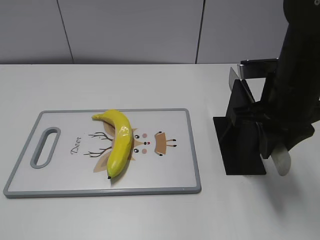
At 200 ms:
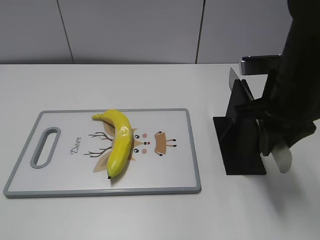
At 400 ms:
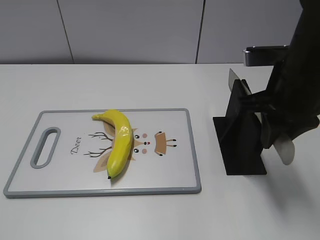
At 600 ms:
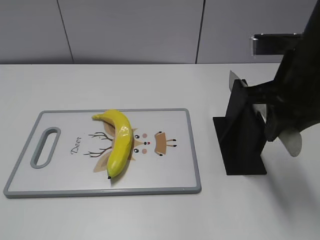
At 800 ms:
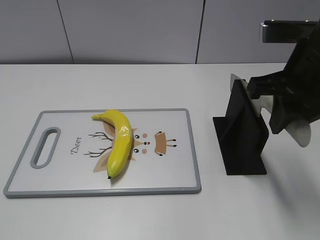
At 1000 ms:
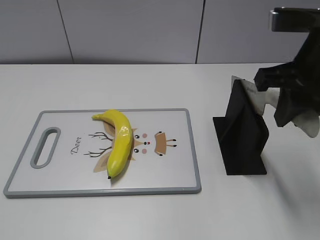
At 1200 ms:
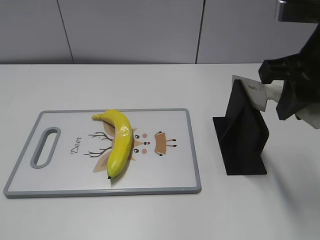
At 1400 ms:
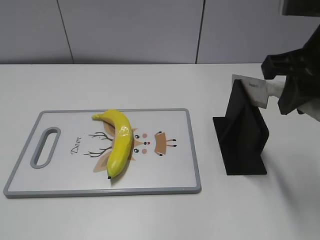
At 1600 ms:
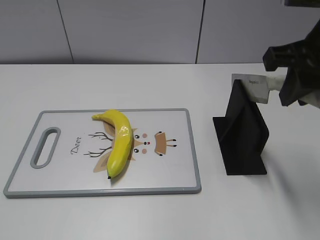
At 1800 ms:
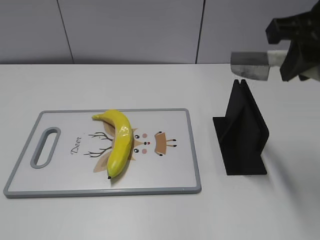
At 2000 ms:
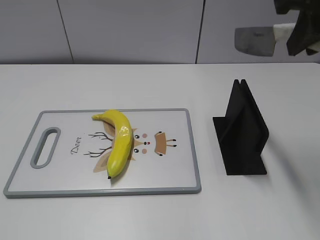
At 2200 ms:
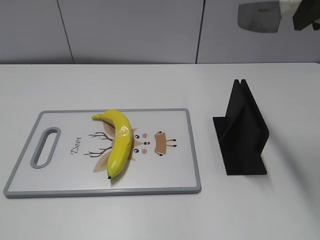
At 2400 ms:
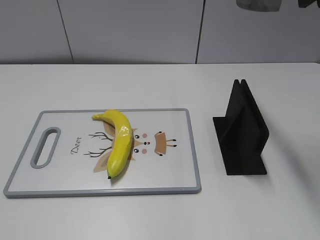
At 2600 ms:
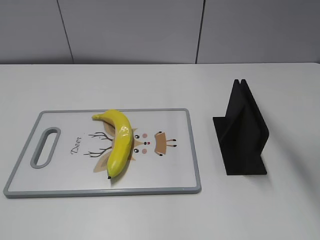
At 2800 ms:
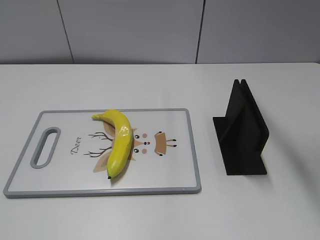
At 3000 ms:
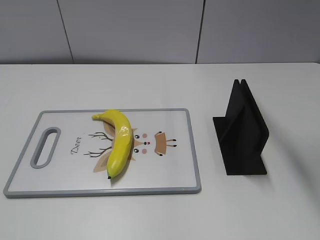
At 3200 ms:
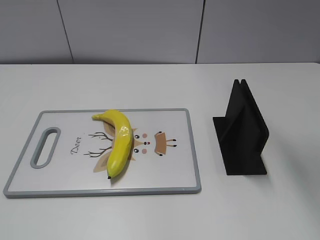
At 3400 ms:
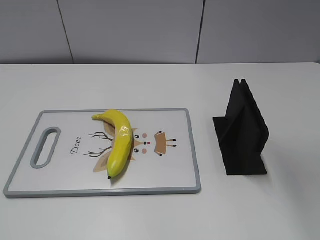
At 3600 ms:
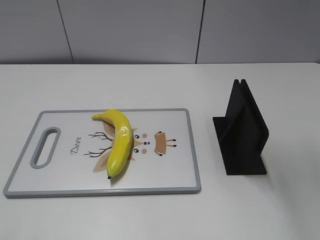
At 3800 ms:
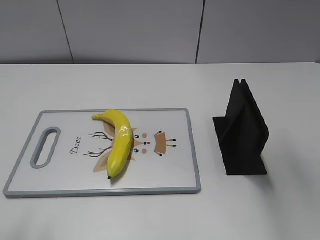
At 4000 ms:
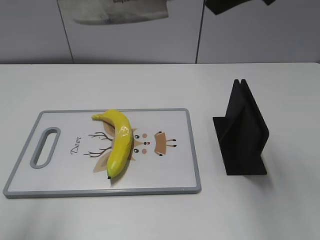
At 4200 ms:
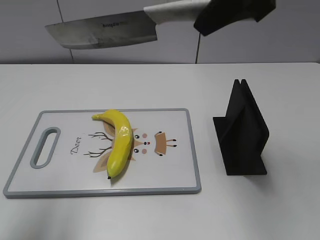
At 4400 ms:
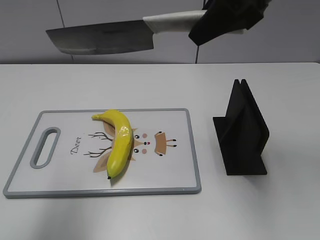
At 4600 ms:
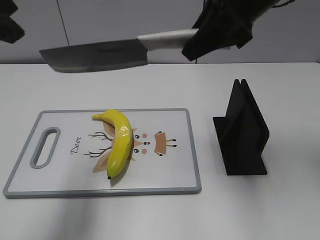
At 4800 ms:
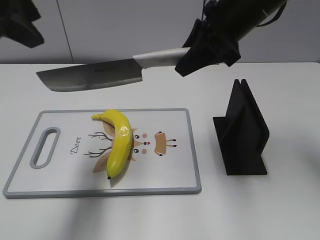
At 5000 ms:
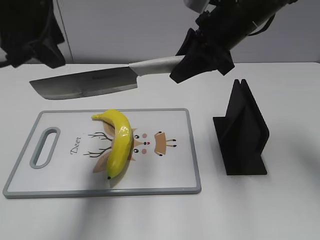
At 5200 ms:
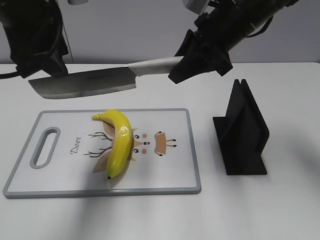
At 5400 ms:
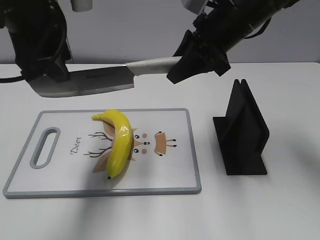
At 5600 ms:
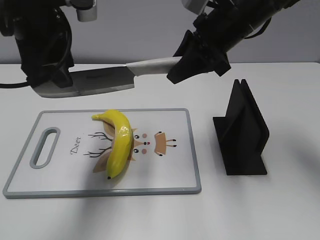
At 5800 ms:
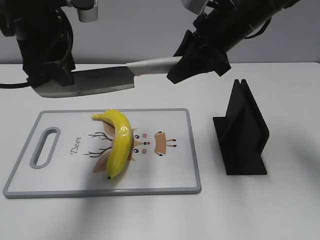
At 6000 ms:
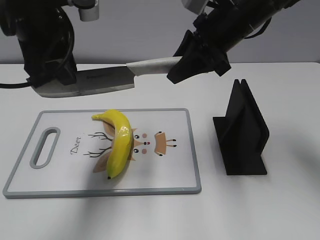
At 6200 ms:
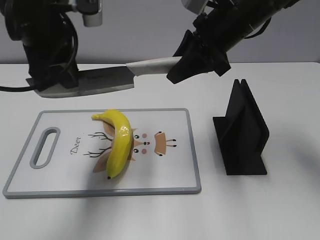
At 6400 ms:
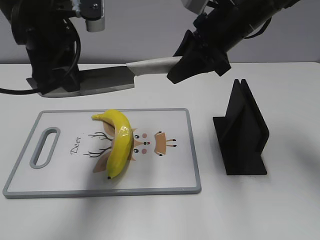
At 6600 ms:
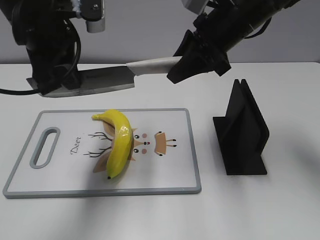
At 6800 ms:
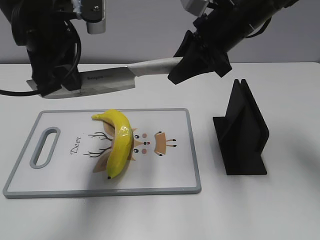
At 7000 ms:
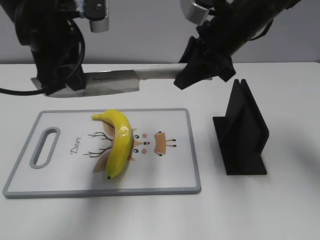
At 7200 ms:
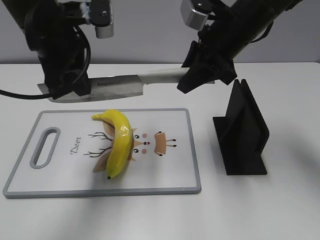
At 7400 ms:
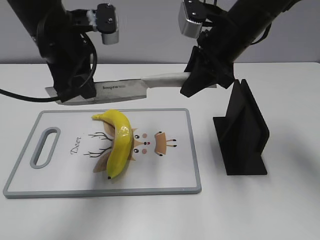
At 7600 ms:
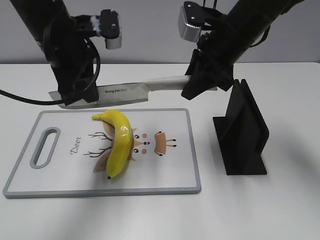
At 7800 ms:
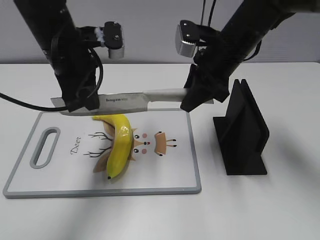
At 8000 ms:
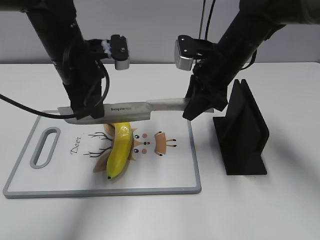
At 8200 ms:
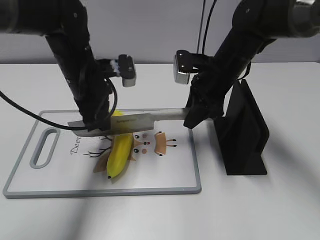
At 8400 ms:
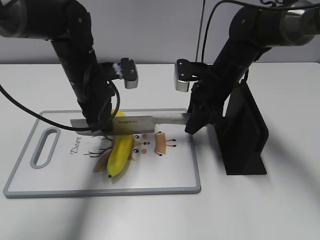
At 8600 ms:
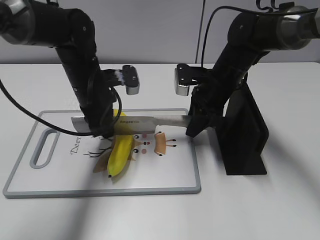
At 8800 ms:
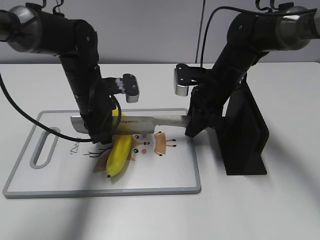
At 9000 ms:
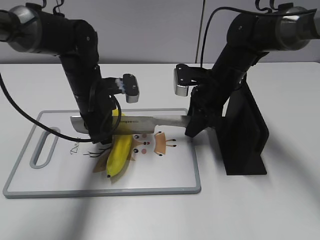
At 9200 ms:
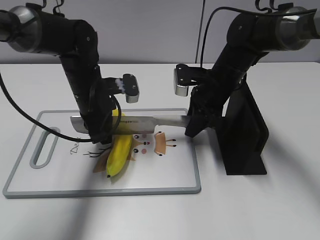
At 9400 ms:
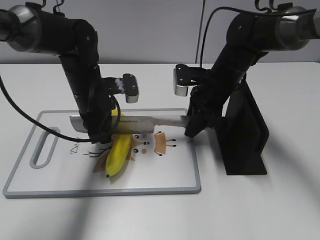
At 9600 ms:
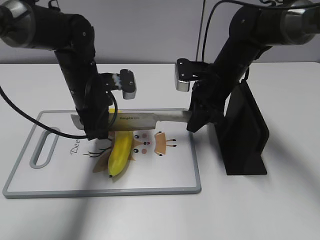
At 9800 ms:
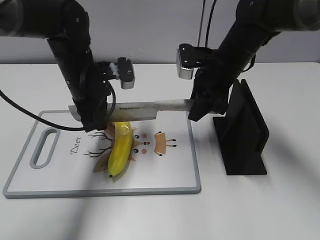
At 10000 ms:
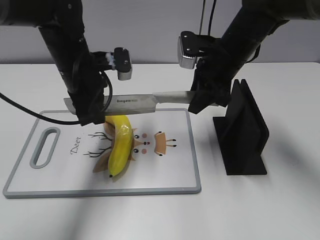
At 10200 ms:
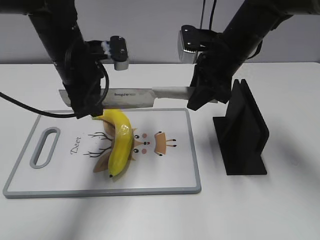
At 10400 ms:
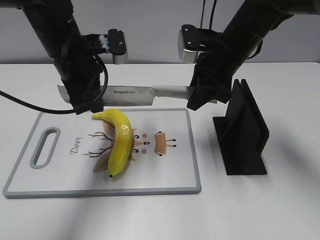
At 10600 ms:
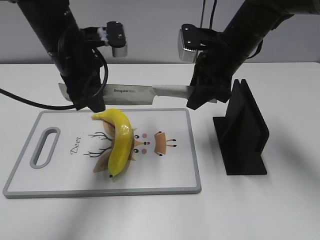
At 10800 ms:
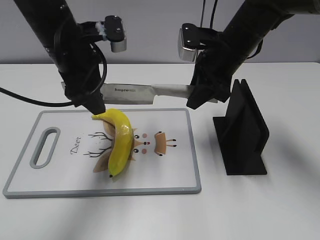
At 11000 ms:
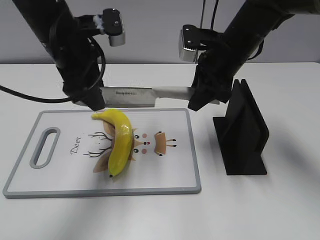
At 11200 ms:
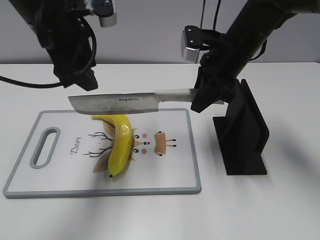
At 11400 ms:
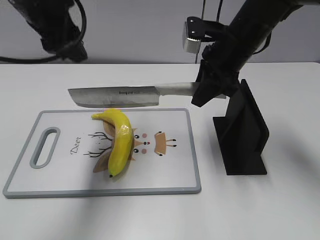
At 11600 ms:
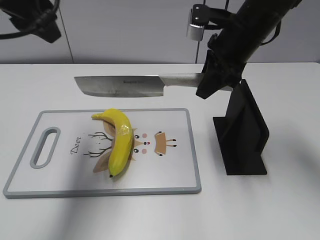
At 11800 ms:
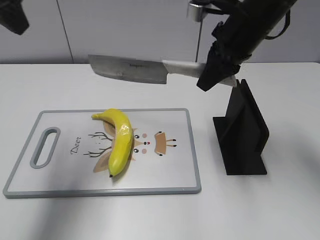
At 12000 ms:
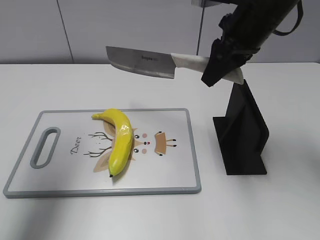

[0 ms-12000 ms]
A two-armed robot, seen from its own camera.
Task of the whole recording: cut plastic banana.
Step, 1200 ms to 10400 ms: Lift the knife with your right hand.
0 ms to 1600 ms: The right gripper is displaced upward by some 10 cm.
1600 ms to 3000 ms: The right gripper travels upward by roughly 10 cm.
3000 ms to 4400 ms: The left gripper goes approximately 25 cm forward and upward, while the right gripper travels downward, forward and to the left by about 15 cm.
4400 ms to 6000 ms: The left gripper heads forward, downward and to the right, covering approximately 15 cm, and closes. The right gripper shifts roughly 10 cm downward.
6000 ms to 7600 ms: The left gripper goes approximately 5 cm downward, and closes up.
7600 ms to 9000 ms: Both grippers travel together downward, approximately 10 cm.
9000 ms to 10400 ms: Both grippers travel together upward, approximately 10 cm.
10400 ms to 12000 ms: The right gripper heads upward, covering approximately 10 cm. The left gripper is displaced upward and to the left by approximately 20 cm, and opens up.

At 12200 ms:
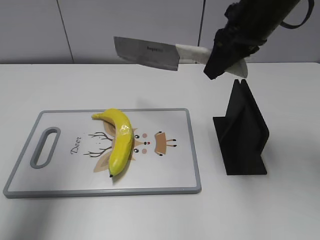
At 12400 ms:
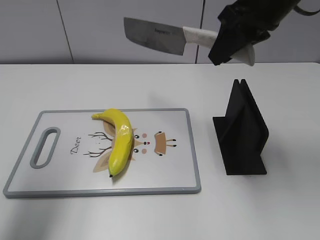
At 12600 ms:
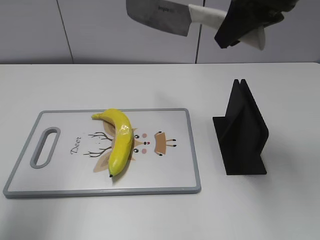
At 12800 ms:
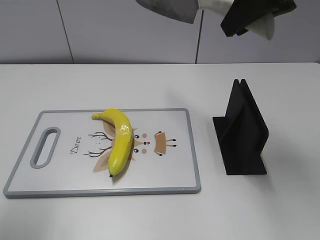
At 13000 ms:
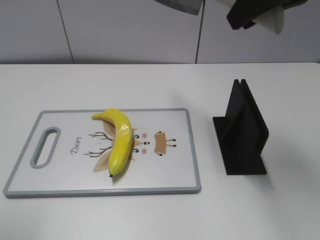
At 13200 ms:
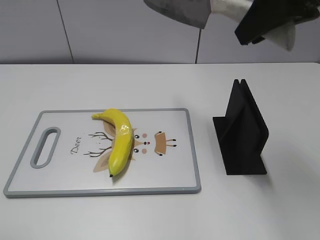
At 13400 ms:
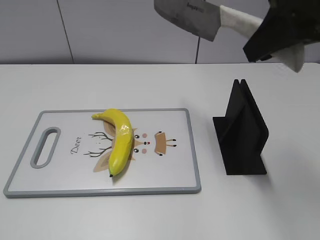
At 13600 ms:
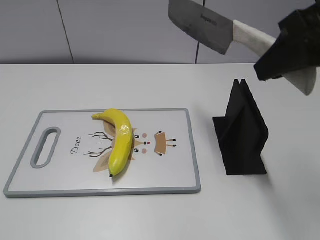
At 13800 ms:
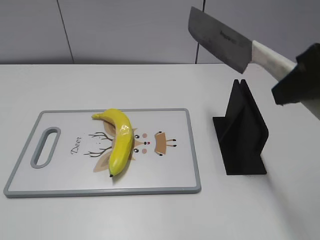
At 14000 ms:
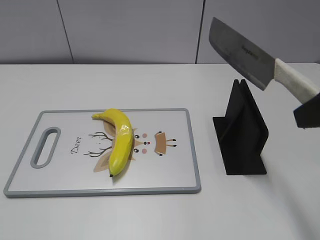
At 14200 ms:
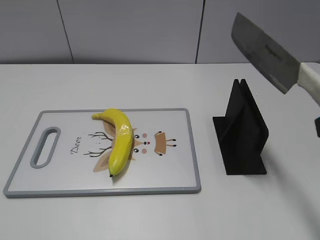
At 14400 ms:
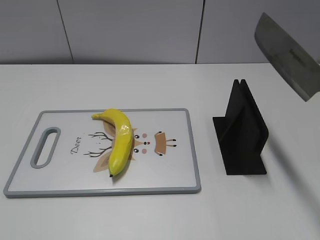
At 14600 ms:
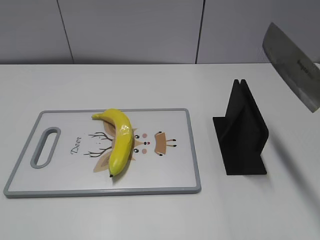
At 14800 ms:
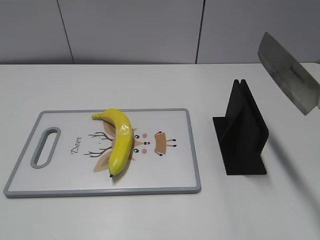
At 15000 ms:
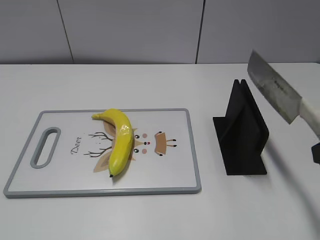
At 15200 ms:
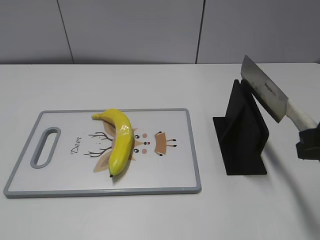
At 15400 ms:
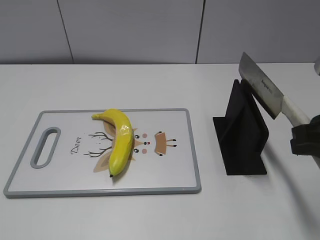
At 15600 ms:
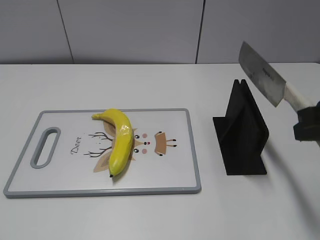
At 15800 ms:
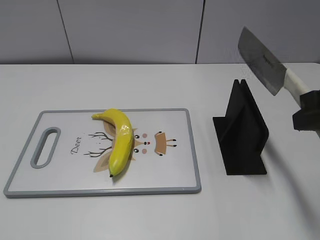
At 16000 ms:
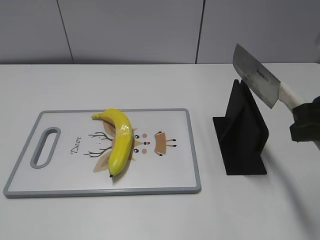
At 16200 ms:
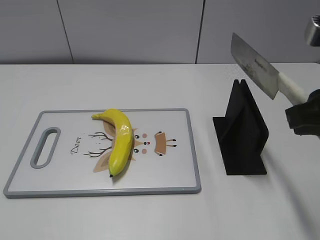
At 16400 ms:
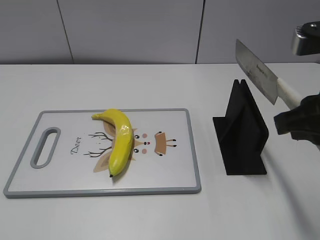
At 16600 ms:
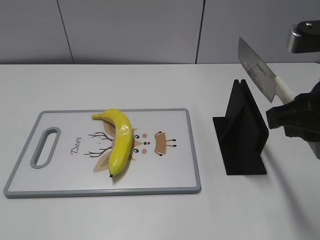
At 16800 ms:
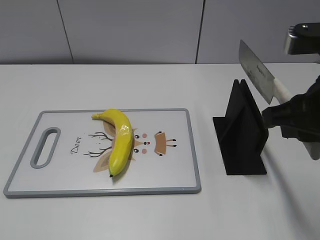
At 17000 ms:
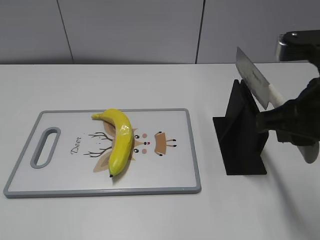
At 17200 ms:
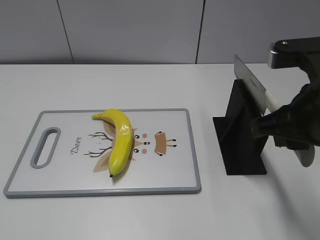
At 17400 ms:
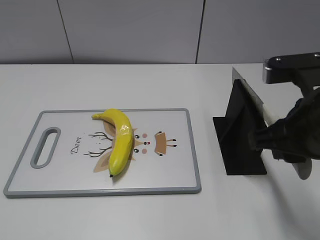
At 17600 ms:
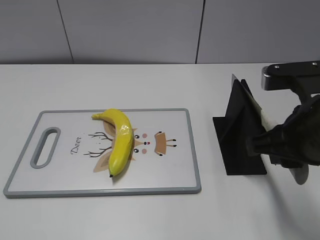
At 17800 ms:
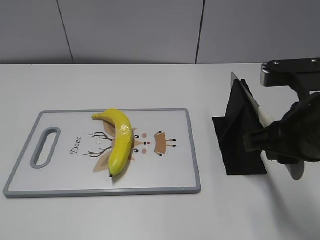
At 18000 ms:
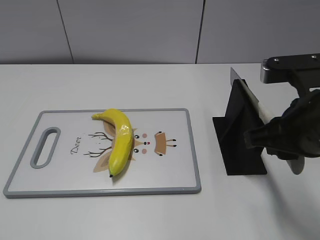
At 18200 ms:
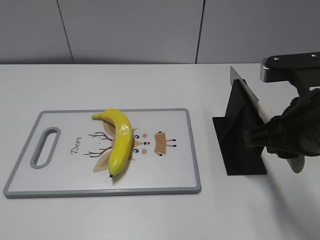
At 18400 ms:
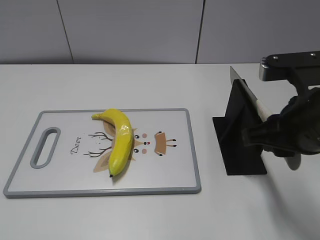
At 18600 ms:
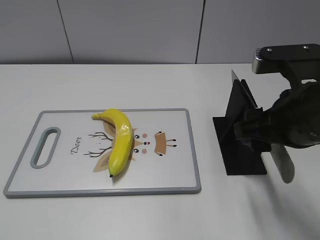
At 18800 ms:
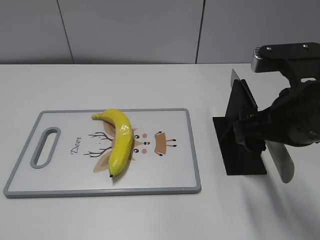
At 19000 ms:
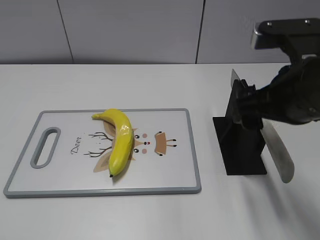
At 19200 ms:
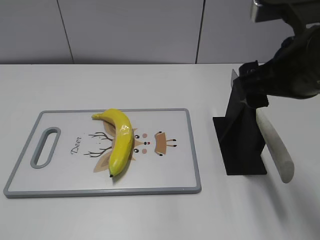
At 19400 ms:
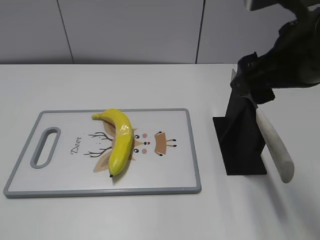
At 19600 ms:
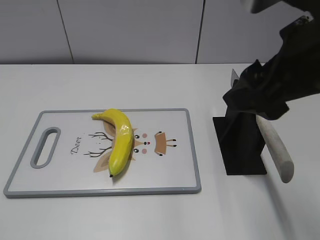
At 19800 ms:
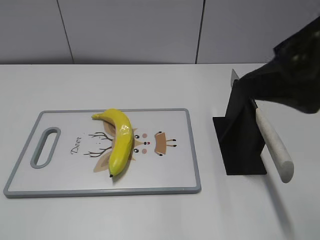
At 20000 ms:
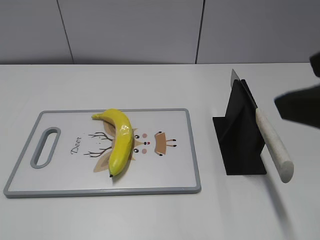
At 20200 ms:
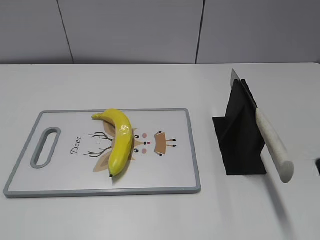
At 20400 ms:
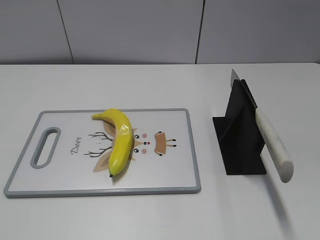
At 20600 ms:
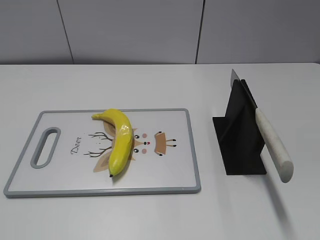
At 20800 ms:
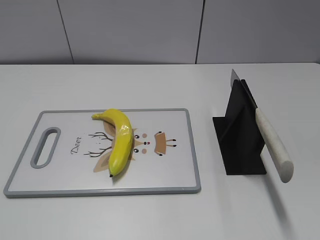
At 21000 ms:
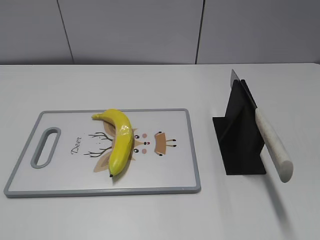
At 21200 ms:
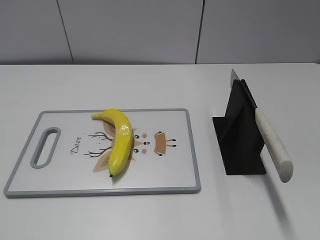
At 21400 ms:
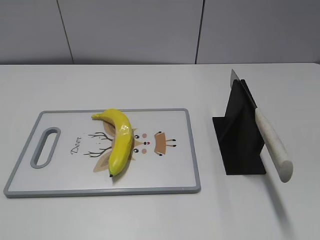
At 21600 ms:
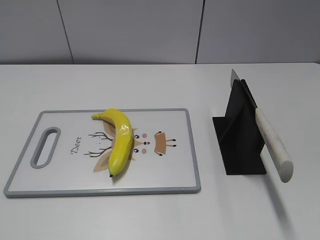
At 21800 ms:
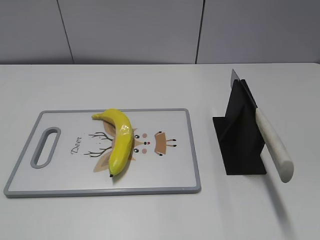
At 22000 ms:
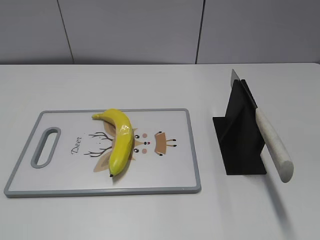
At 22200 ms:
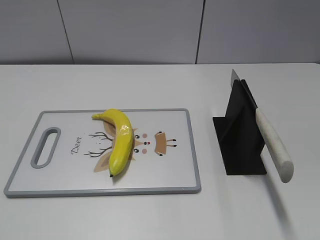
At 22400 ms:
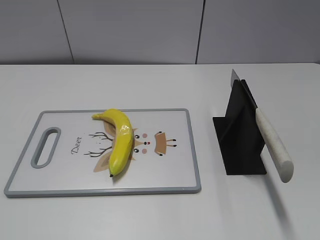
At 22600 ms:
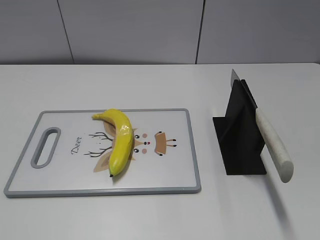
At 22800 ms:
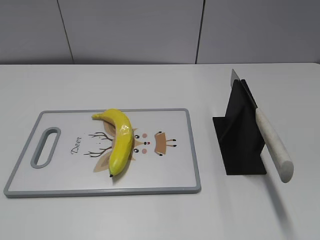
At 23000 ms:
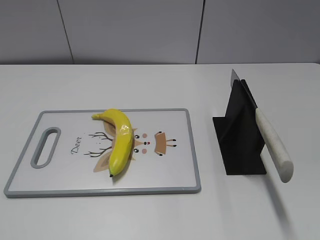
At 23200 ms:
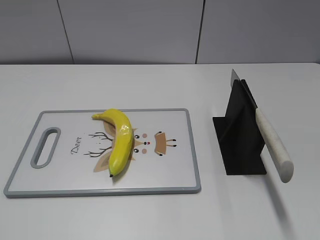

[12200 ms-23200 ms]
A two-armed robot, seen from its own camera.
Task of the whole recording: cut plastic banana.
Step, 13400 ms to 14400 ms: Lift the knife with your right hand.
Step, 14600 ms to 23200 ms: Place the knife on the storage rack with your right hand.
12200 ms to 13800 ms: The left gripper moves backward and downward, roughly 30 cm. The right gripper goes approximately 15 cm backward and to the right.
13800 ms to 15400 ms: The right gripper travels downward by some 10 cm.
15400 ms to 17000 ms: The right gripper heads to the left, covering approximately 5 cm.
17000 ms to 18400 ms: The grippers move only a little.
18400 ms to 20000 ms: The right gripper shifts some 15 cm upward and backward, and opens.
20000 ms to 21600 ms: The right gripper is displaced backward, to the right and downward by approximately 15 cm.
